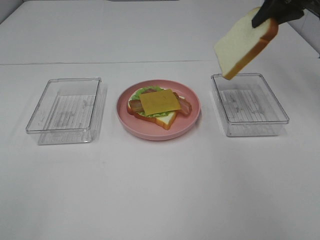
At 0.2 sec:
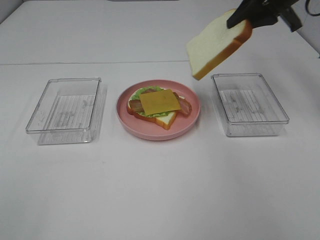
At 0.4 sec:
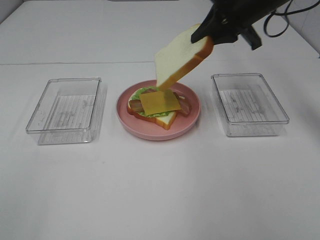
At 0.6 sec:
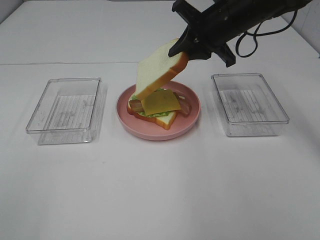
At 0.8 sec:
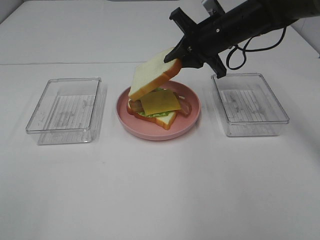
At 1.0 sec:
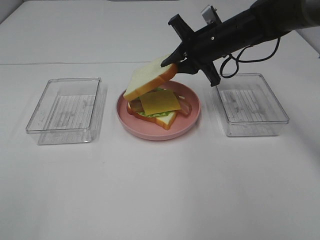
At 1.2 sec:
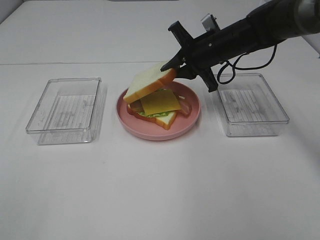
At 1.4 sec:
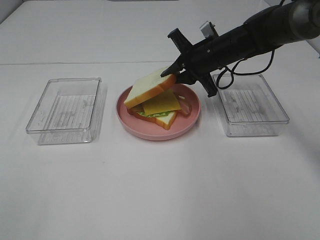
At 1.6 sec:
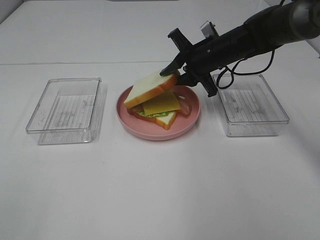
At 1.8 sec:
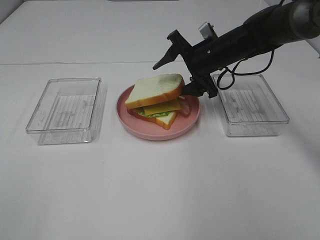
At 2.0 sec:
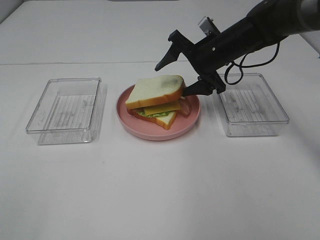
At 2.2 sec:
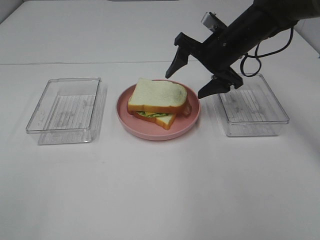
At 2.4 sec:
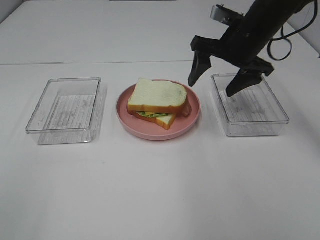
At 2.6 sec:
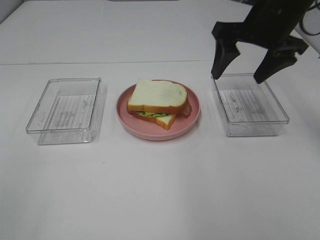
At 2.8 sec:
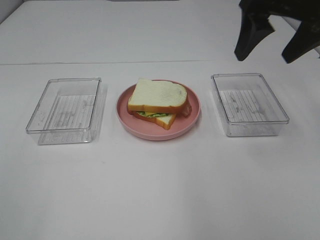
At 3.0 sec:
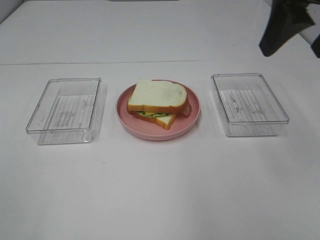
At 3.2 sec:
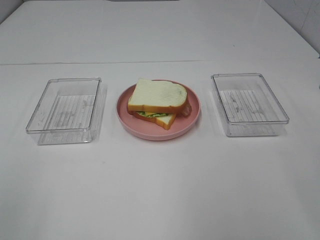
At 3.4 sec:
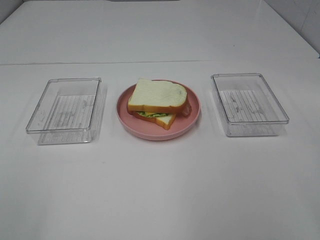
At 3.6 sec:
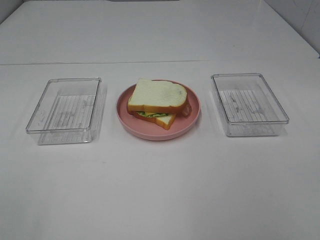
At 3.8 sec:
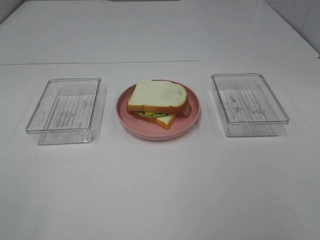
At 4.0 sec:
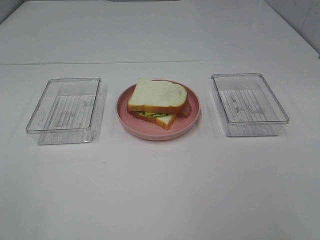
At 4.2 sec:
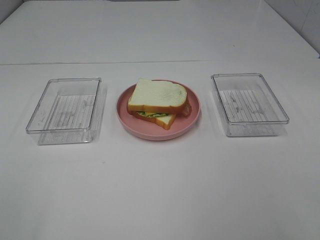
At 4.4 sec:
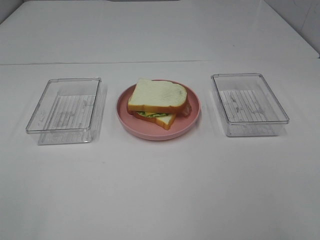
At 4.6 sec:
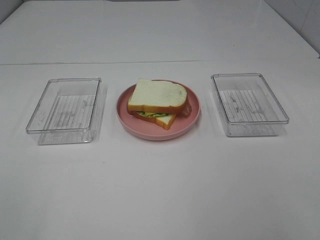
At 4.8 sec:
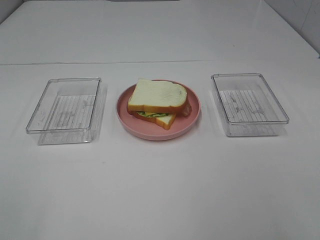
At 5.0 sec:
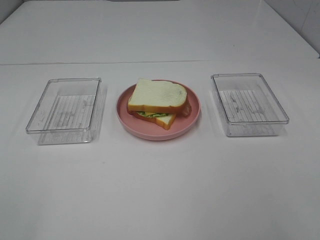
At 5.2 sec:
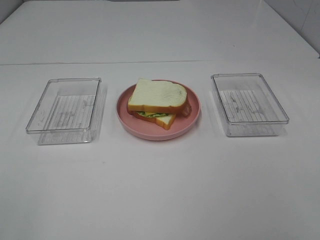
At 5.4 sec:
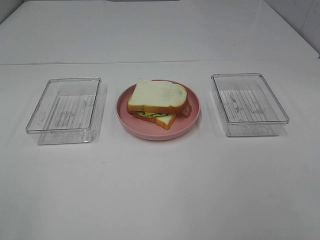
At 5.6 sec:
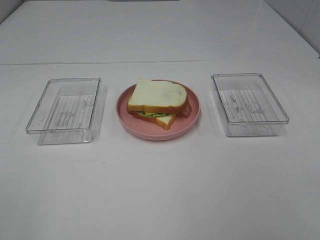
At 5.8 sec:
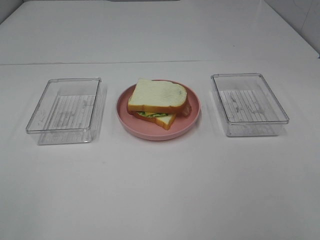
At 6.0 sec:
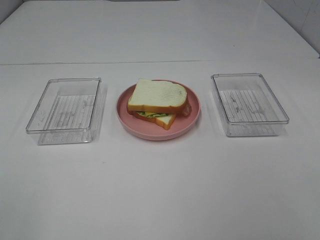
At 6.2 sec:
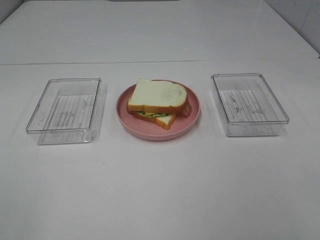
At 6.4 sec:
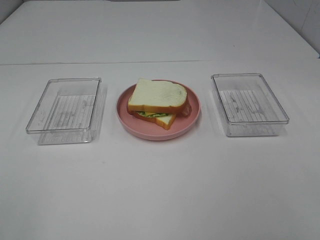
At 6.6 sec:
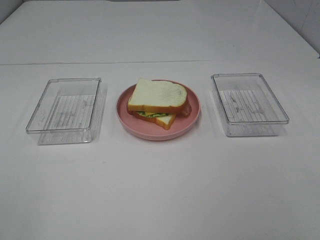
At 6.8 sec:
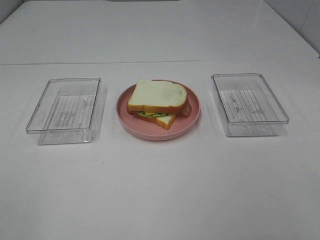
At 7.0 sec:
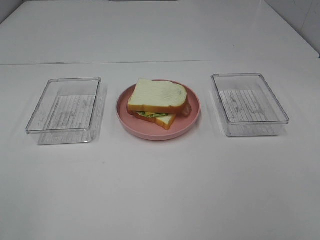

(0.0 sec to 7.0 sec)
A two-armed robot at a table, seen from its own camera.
Task of the whole recording: Make sandwiches.
Step, 0.0 sec - 2.2 sec: Right hand:place the bread slice on the cheese slice.
0.0 sec - 1.4 sec: The right gripper goes roughly 20 cm downward and to the left.
1.4 sec - 2.8 sec: The right gripper travels upward and backward by roughly 25 cm, and opens up.
2.8 sec - 4.2 sec: The right gripper moves backward, roughly 30 cm.
5.6 sec - 7.0 sec: Neither gripper changes place.
